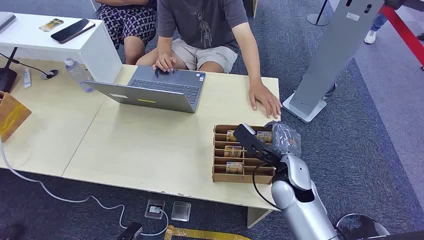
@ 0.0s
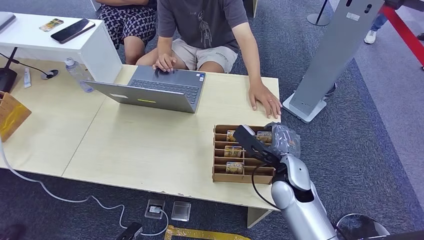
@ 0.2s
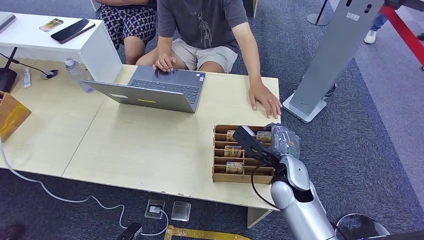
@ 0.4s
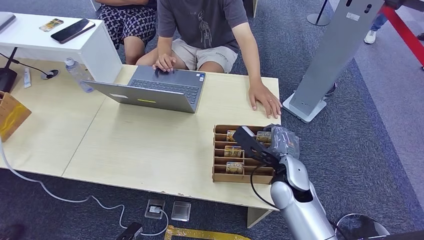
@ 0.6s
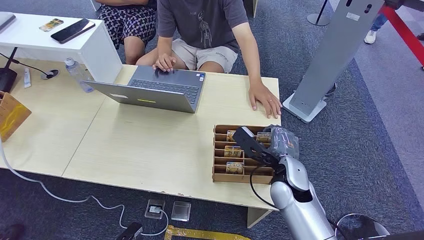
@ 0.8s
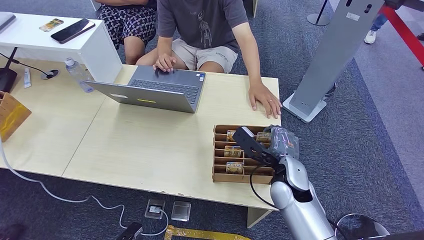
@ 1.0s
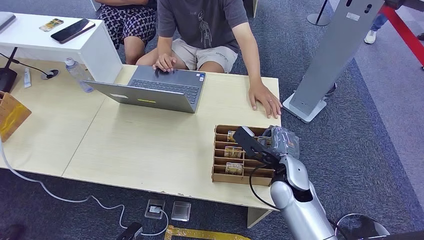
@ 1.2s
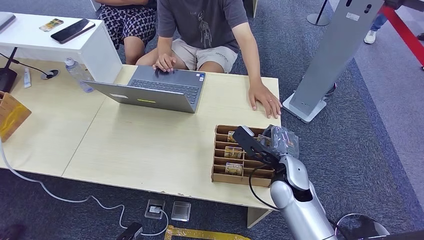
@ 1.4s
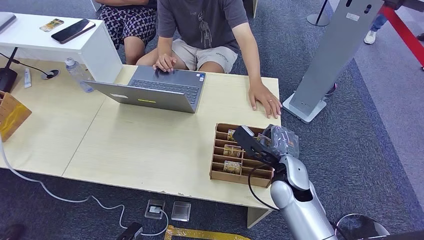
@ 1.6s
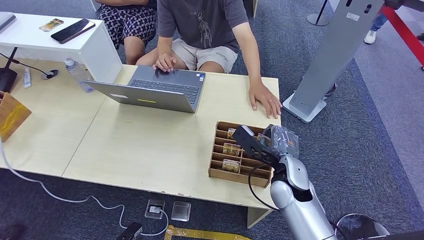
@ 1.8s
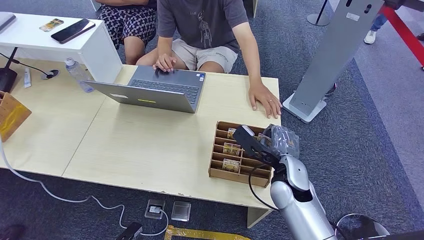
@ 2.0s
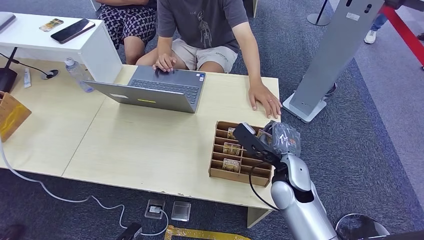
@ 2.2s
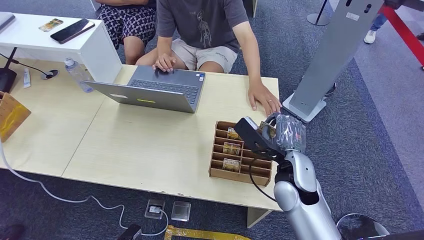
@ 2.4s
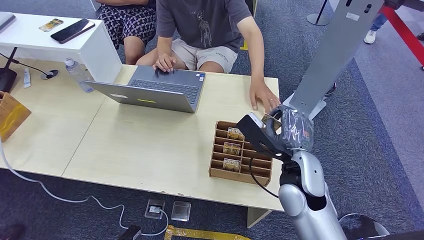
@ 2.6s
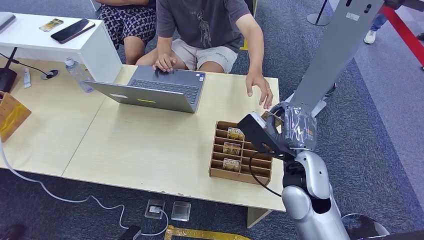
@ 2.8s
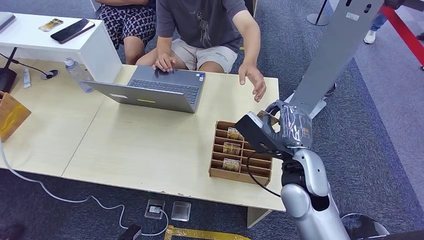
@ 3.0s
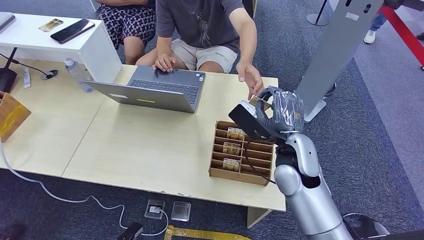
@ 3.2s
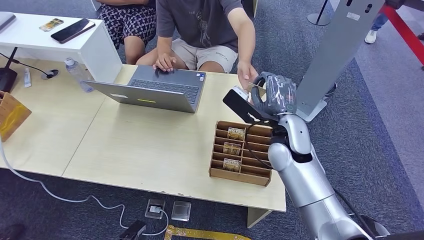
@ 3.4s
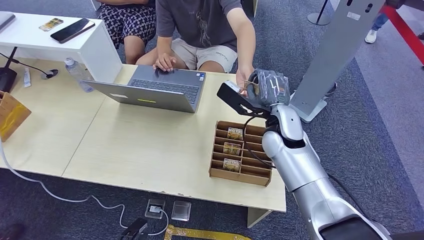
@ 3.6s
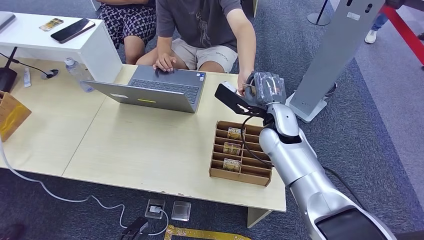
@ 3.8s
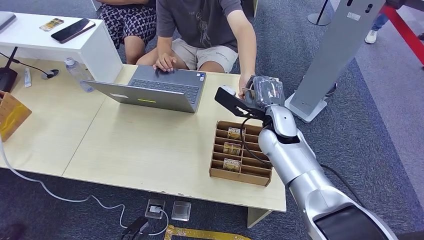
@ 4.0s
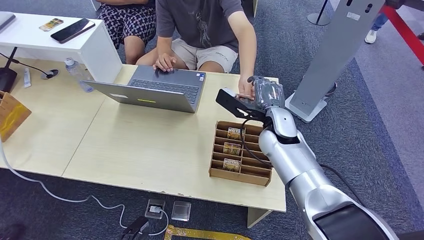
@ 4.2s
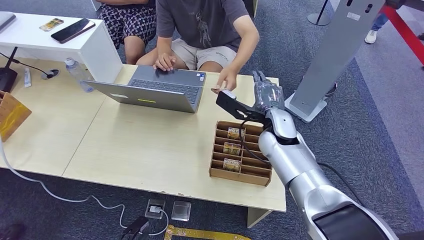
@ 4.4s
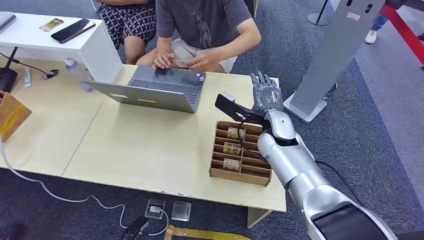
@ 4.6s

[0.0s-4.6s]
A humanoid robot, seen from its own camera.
Step, 0.0s to 2.6s: Pick up the room card from the card holder.
Step, 3.2s to 4.4s: Hand the room card to the target.
1.6s to 3.0s: The right hand is displaced upward by roughly 10 cm.
3.0s to 4.6s: The right hand shifts some 15 cm forward.

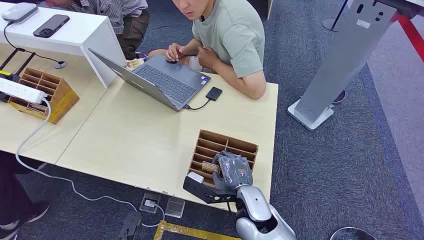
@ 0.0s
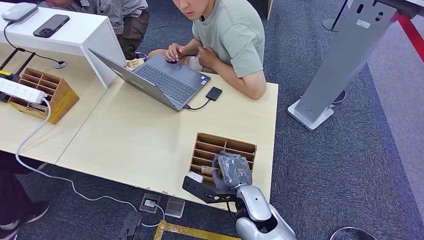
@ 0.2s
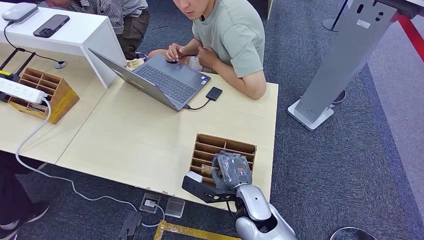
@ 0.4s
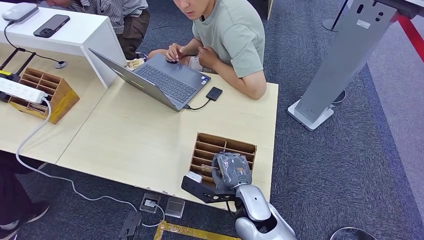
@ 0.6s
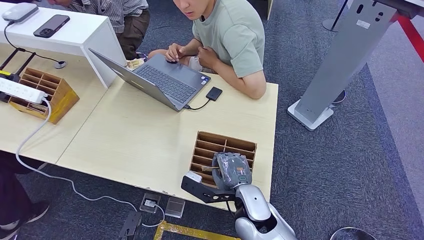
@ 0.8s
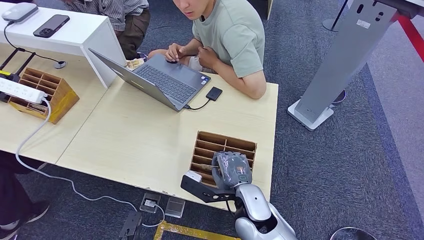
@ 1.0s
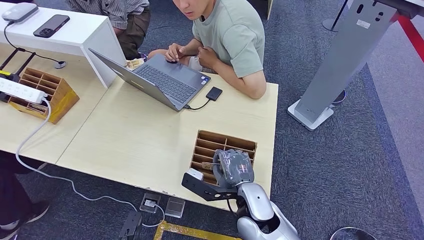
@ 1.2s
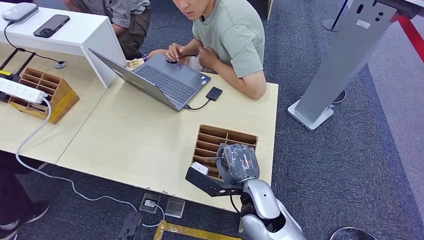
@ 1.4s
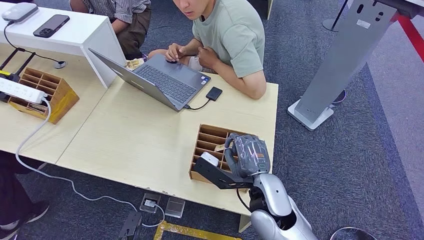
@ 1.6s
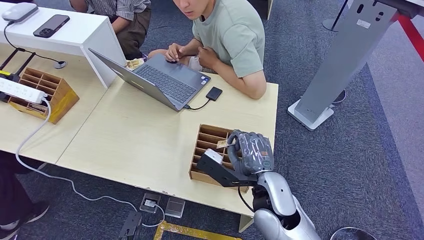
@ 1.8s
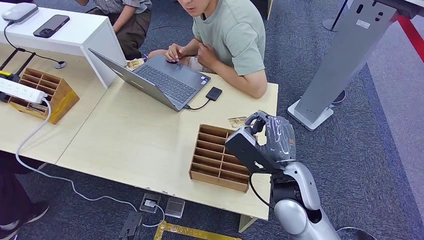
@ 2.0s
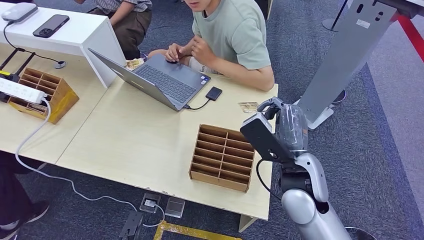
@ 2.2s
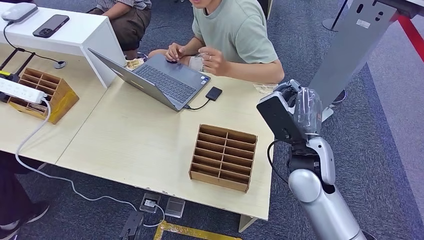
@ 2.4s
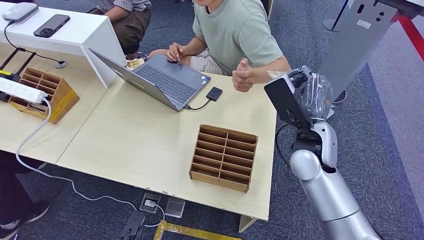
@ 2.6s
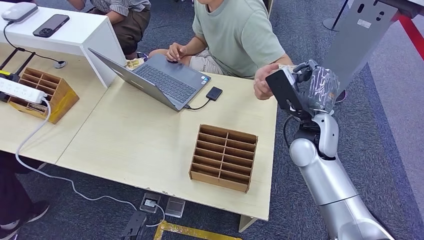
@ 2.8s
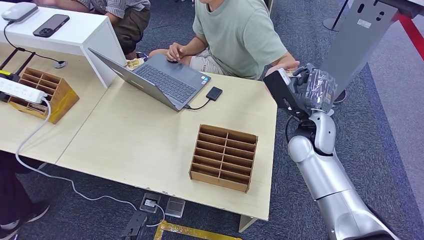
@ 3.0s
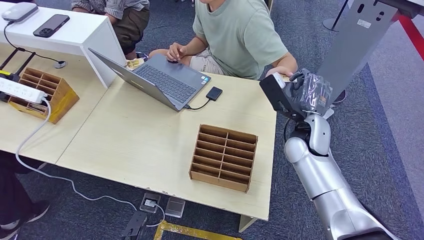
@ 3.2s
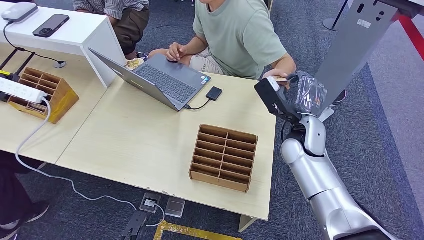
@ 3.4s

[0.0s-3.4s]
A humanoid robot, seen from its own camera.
Step, 0.0s to 1.4s: Pick up the room card from the card holder.
Step, 2.2s to 3.4s: Hand the room card to the target.
1.6s to 3.4s: The right hand travels forward and to the right by roughly 15 cm.
